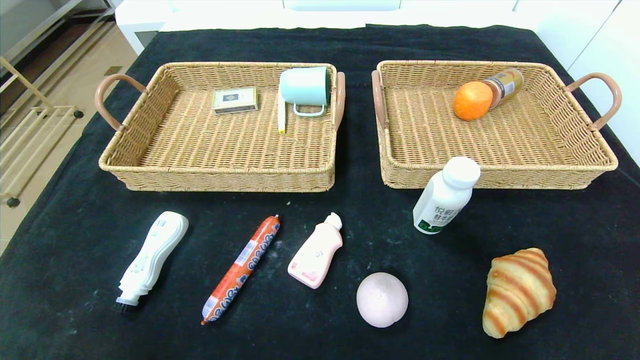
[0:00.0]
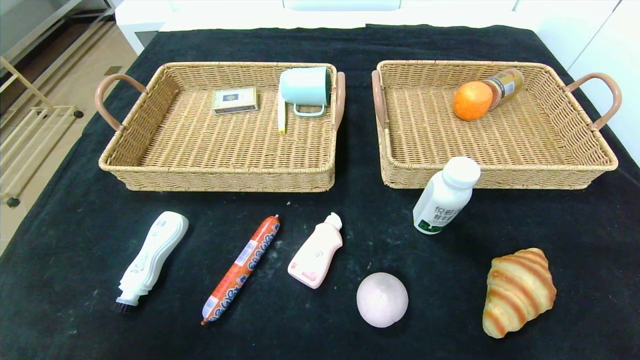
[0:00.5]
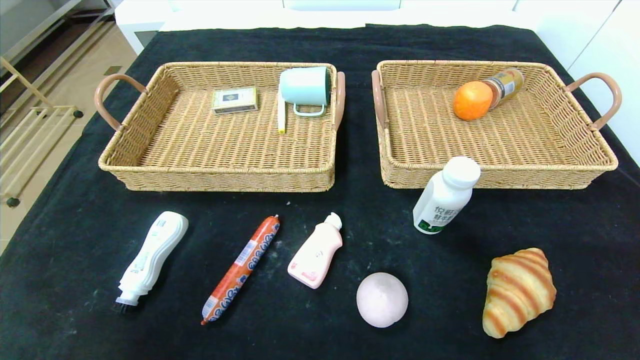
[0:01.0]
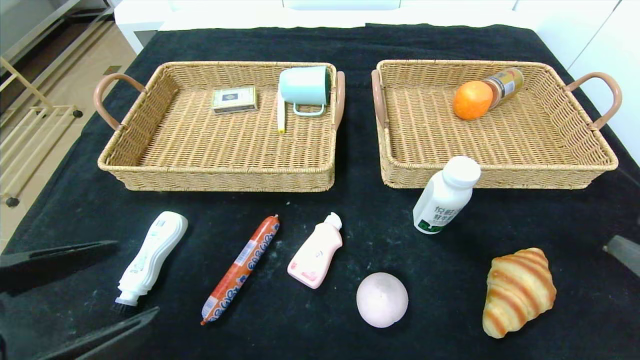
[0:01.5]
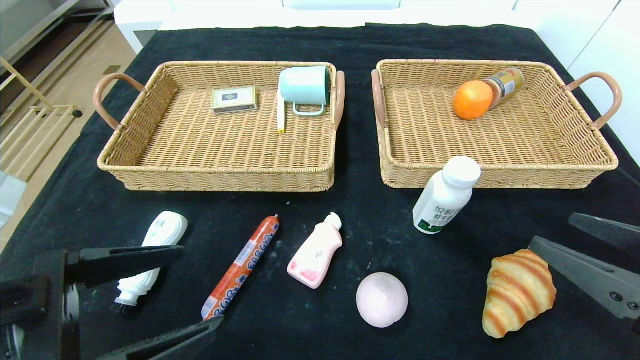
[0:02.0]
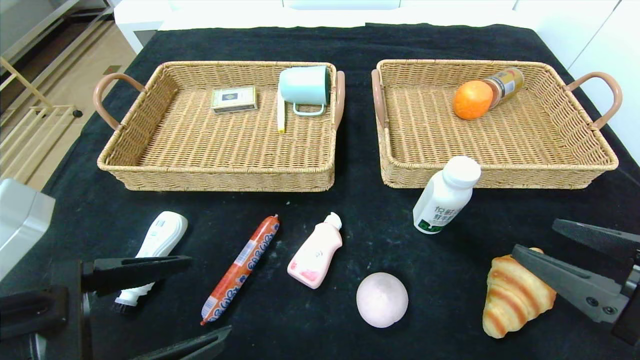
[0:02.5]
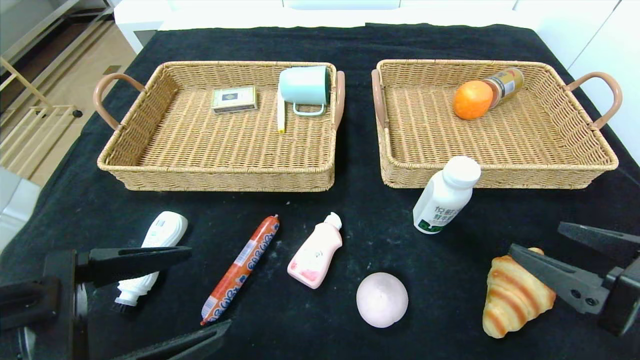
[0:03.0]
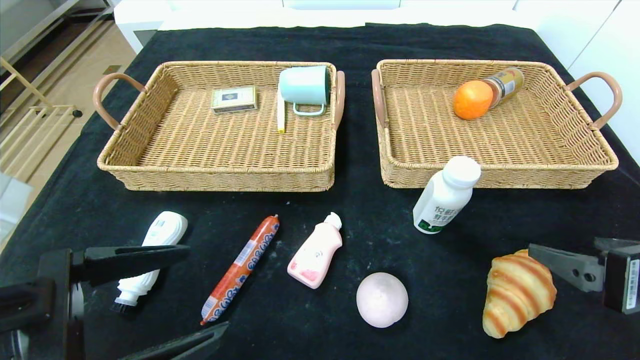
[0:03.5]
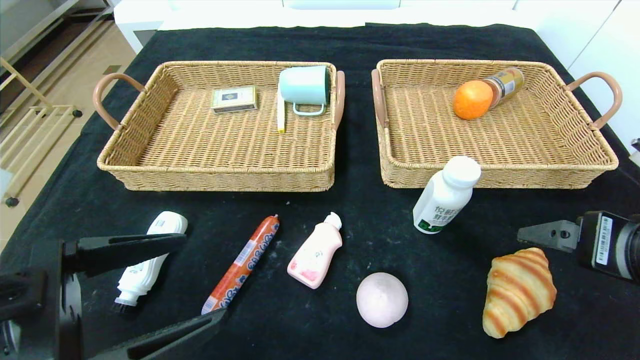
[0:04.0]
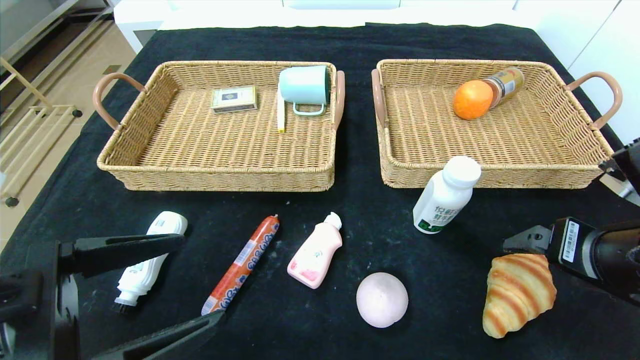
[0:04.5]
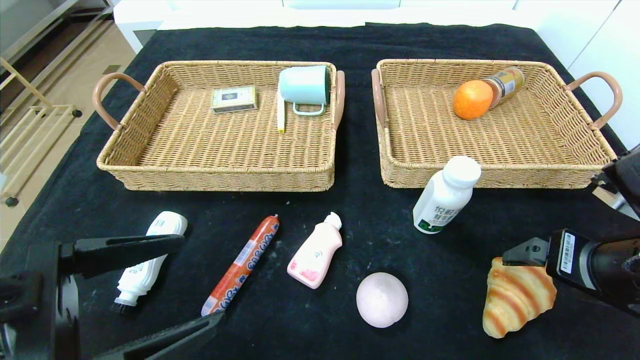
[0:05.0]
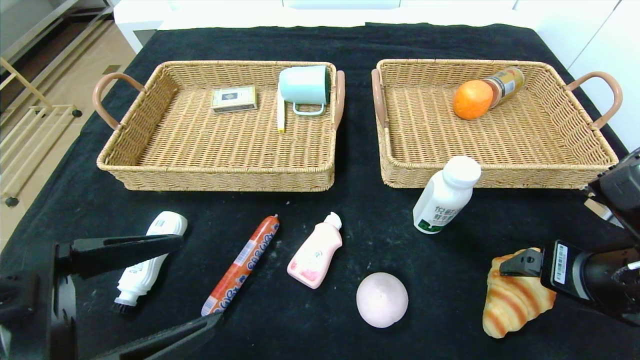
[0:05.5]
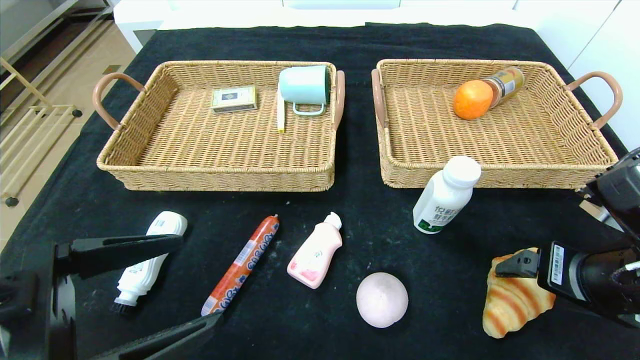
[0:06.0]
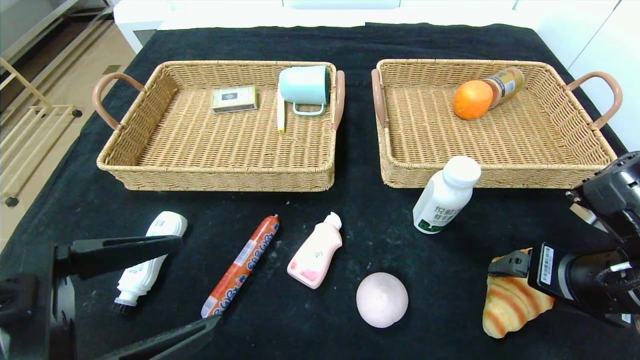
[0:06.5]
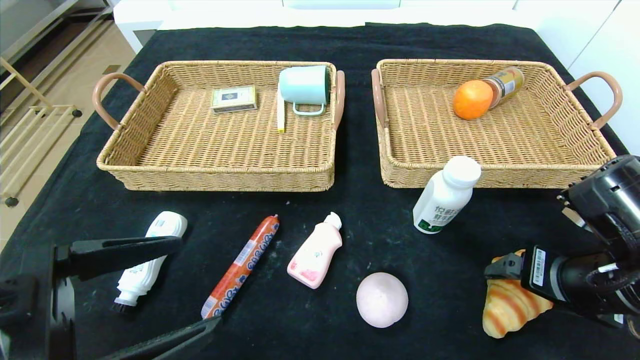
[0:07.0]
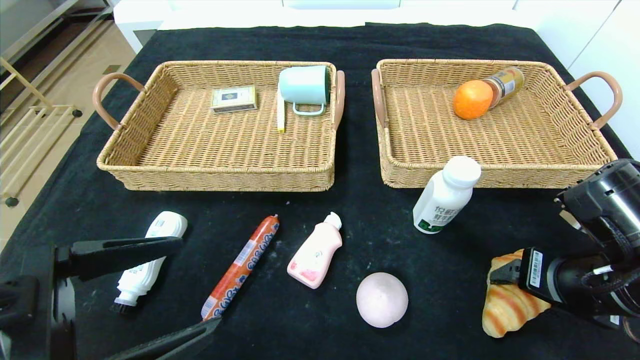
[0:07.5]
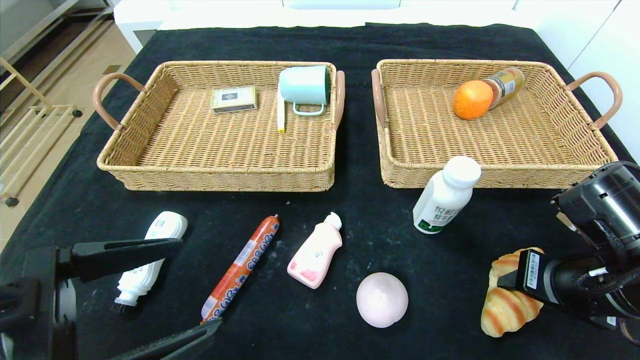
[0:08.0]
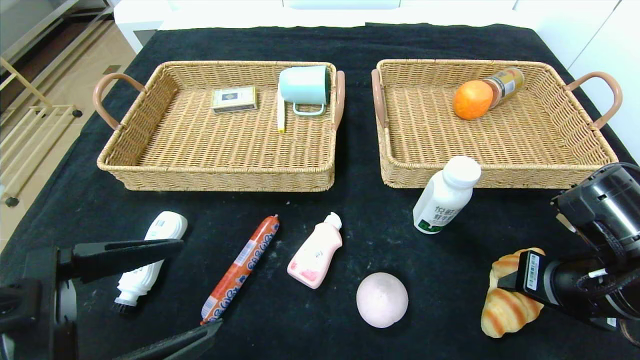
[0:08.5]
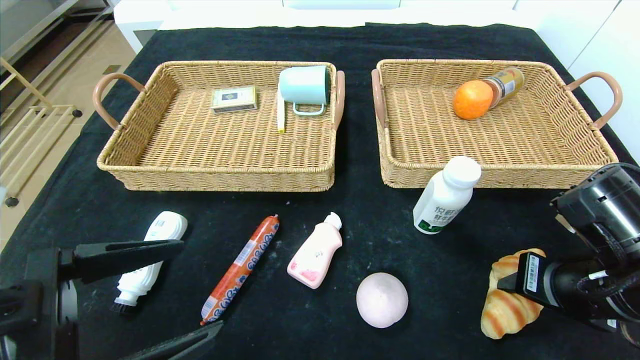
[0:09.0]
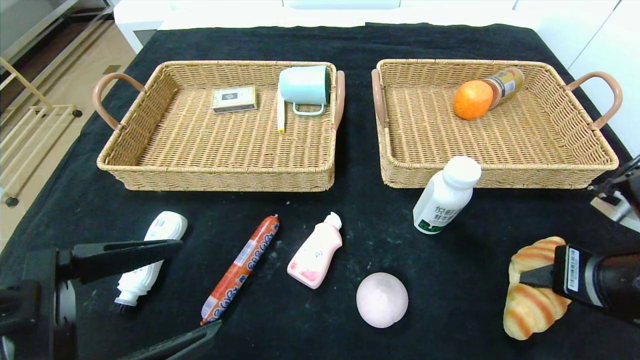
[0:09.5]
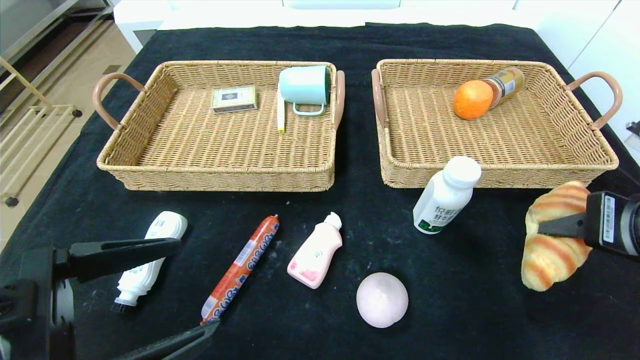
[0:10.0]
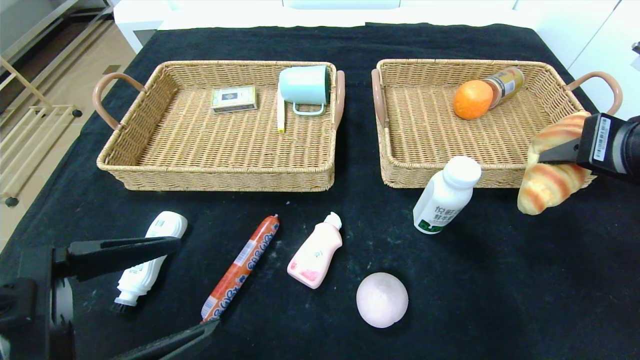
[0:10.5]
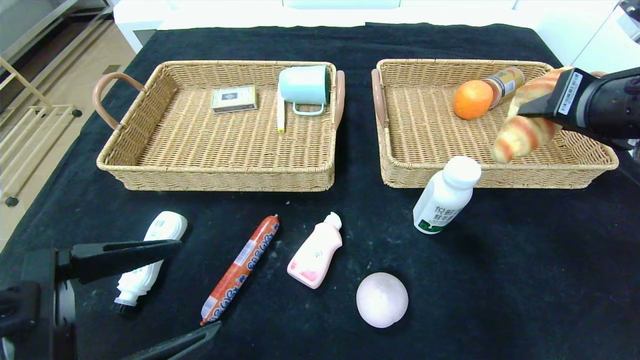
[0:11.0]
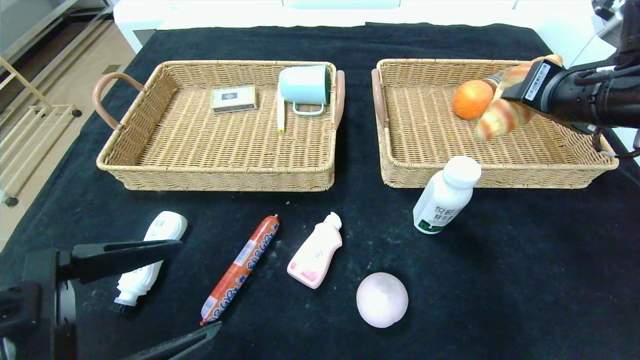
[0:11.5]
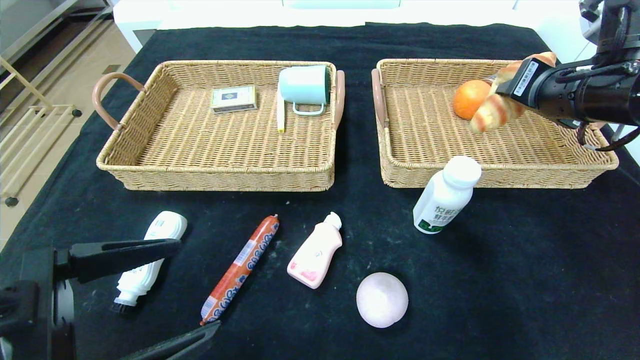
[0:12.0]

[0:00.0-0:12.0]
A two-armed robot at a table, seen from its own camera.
0.0 to 2.0 s: The right gripper goes approximately 20 cm upward, forward and to the left; the left gripper travels upward, forward and to the right by approximately 20 cm.
2.0 to 4.0 s: The right gripper ends up roughly 5 cm from where it was.
4.0 to 6.0 s: The grippers move only a little.
6.0 to 8.0 s: The right gripper closes.
8.0 to 10.0 s: The right gripper goes approximately 10 cm upward.
10.0 to 12.0 s: The right gripper shifts some 15 cm forward and upward.

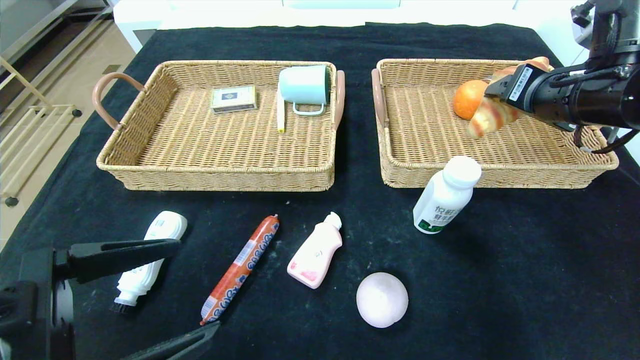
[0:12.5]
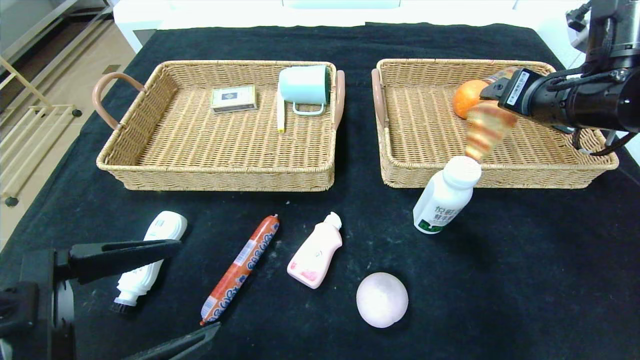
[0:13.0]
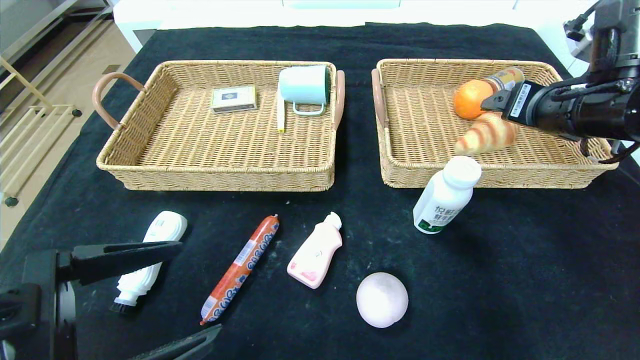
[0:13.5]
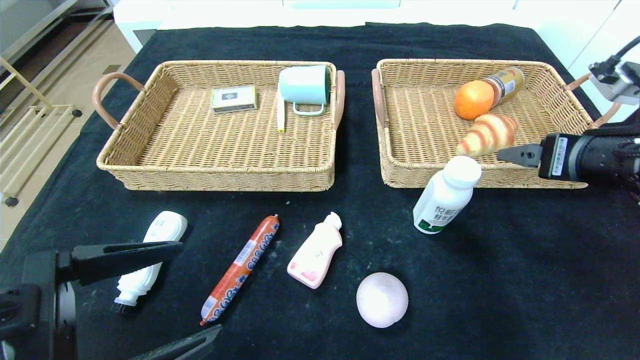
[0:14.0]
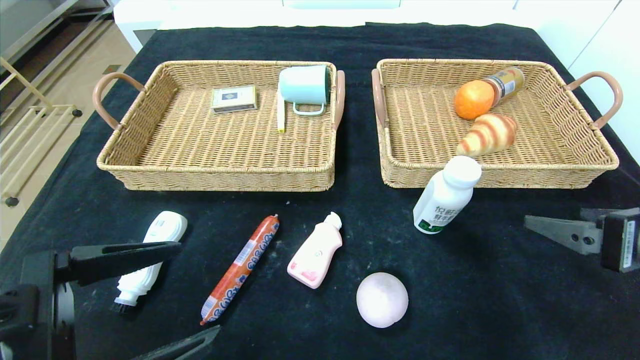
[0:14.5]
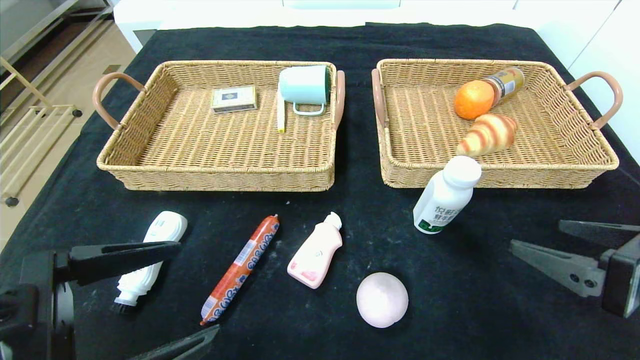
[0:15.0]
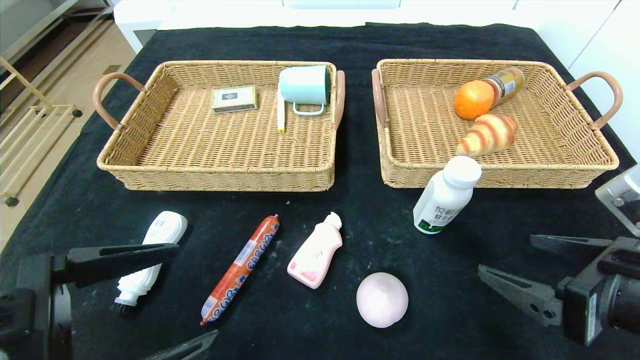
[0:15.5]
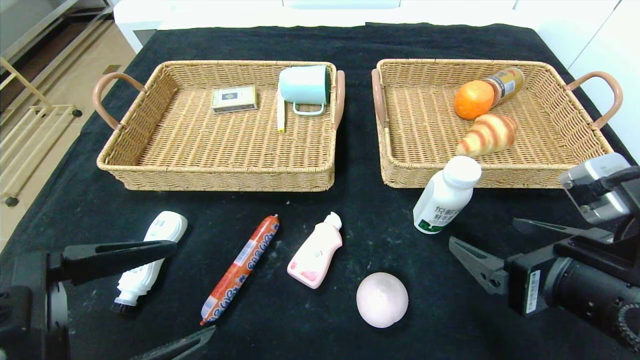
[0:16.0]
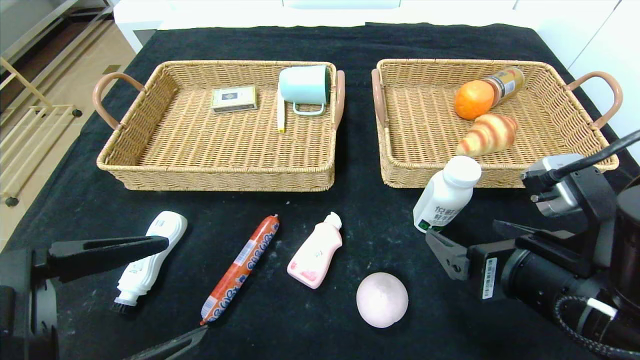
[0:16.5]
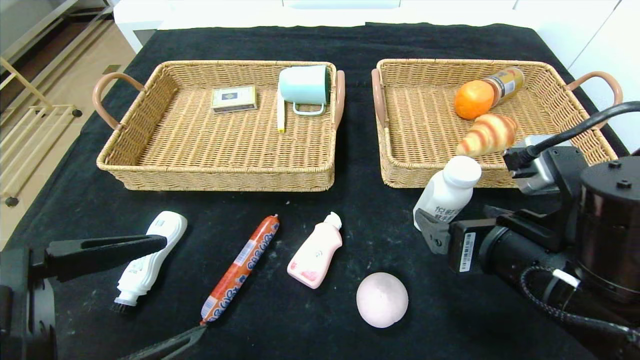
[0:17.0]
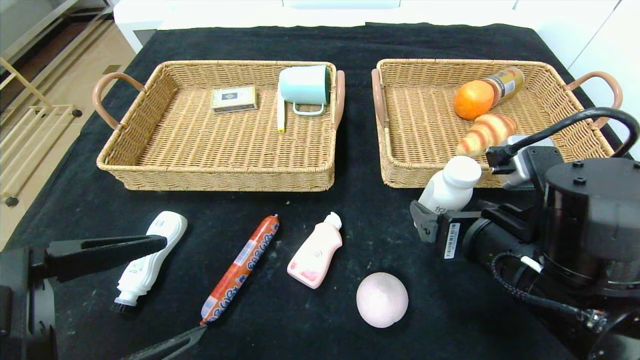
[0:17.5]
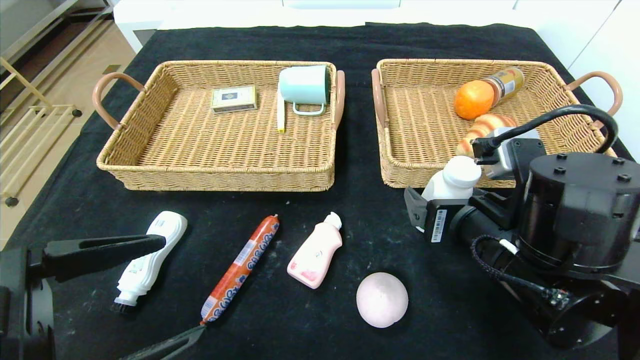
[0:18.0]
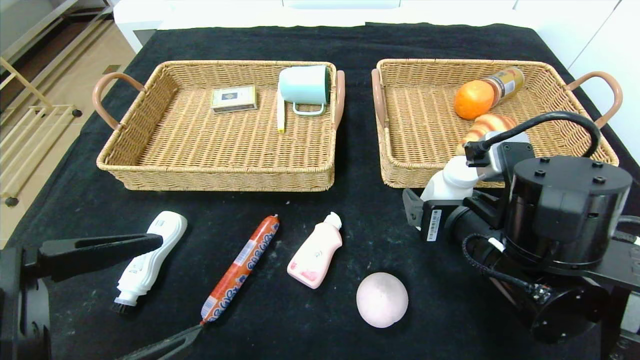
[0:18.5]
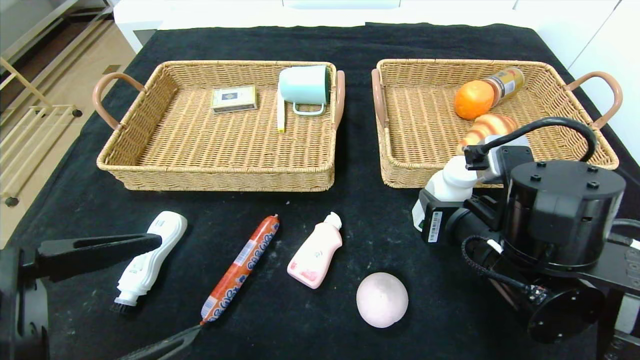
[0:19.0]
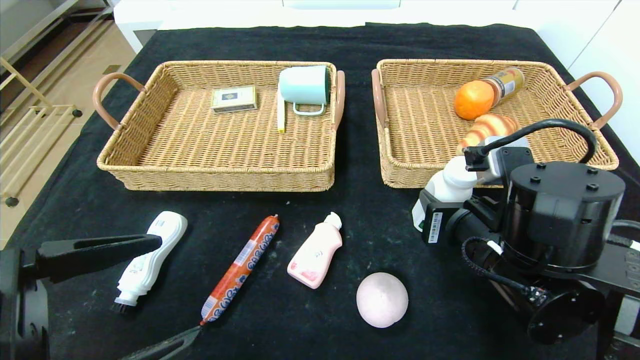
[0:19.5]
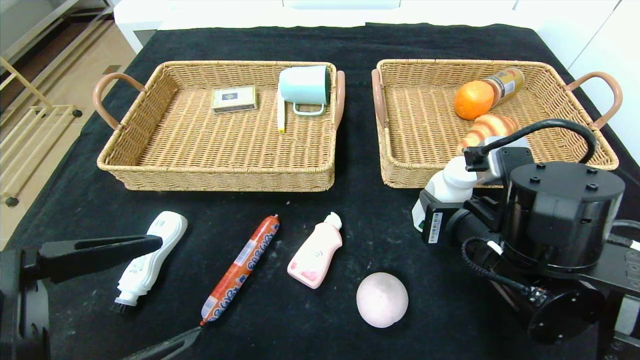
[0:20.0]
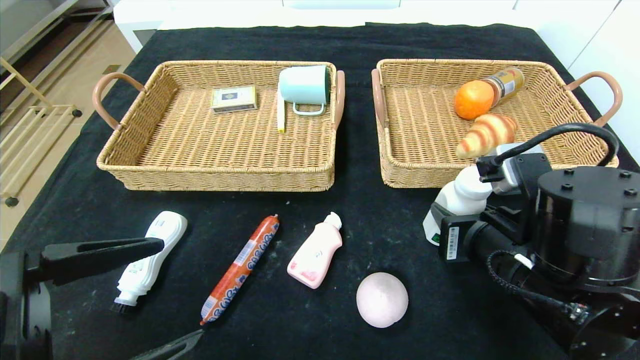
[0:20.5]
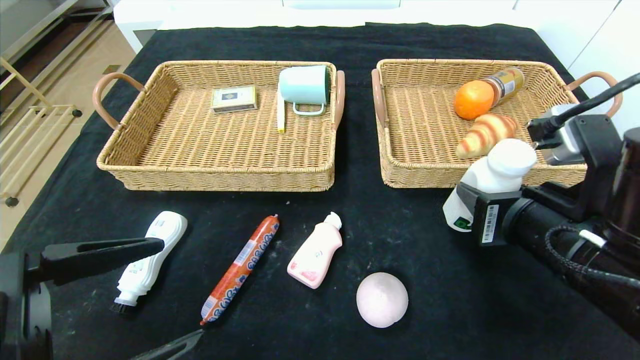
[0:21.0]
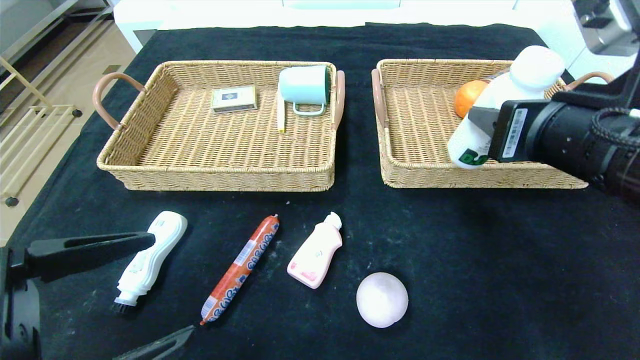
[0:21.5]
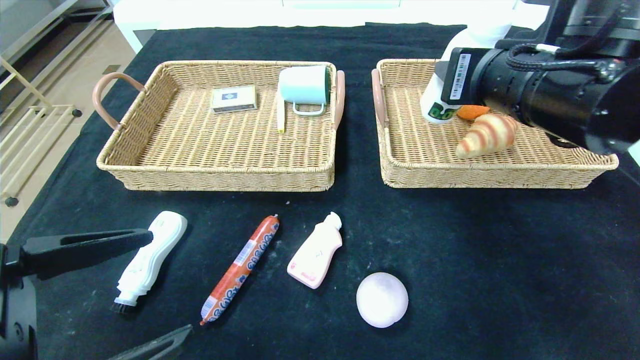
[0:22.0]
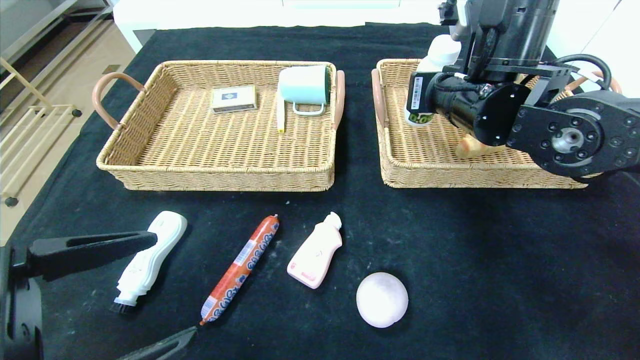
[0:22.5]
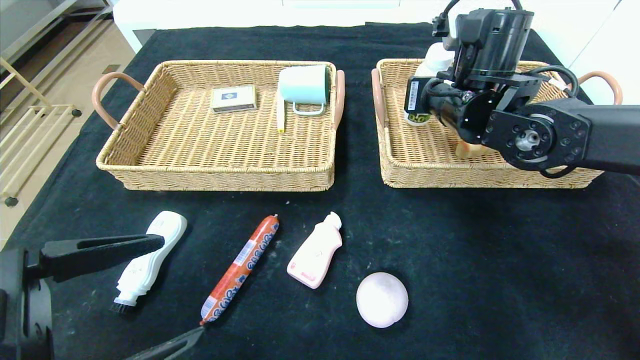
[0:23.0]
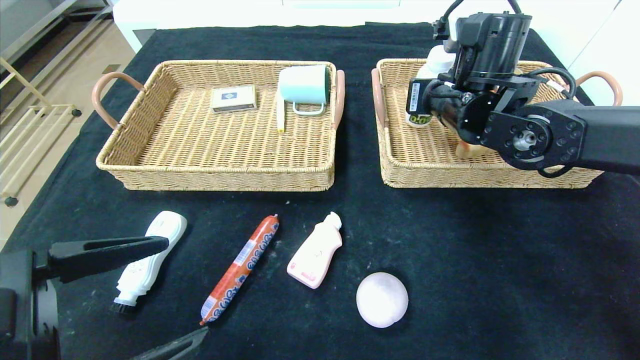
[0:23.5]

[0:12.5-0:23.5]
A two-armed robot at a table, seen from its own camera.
12.5 to 14.5 s: The right gripper travels backward and downward by roughly 20 cm.
14.5 to 16.0 s: The right gripper is displaced to the left by approximately 10 cm.
16.0 to 18.0 s: The right gripper travels to the left and forward by about 10 cm.
18.0 to 20.0 s: The right gripper closes.
20.0 to 21.5 s: The right gripper is displaced upward by approximately 10 cm.
21.5 to 23.5 s: The right gripper goes about 20 cm forward.
